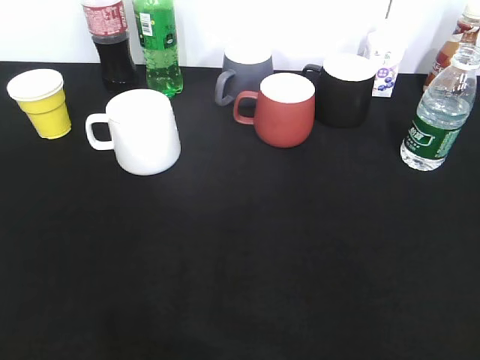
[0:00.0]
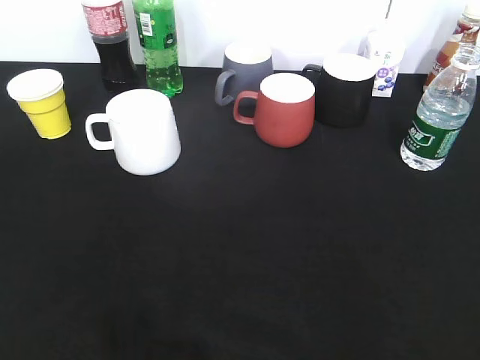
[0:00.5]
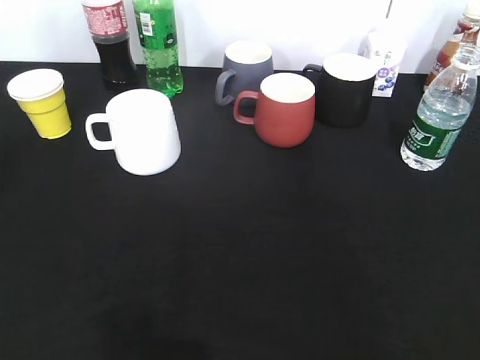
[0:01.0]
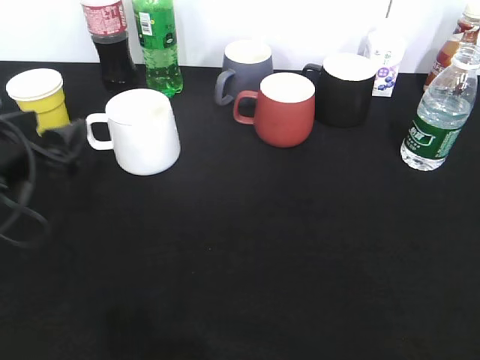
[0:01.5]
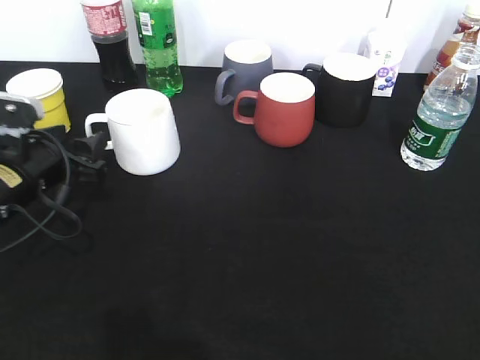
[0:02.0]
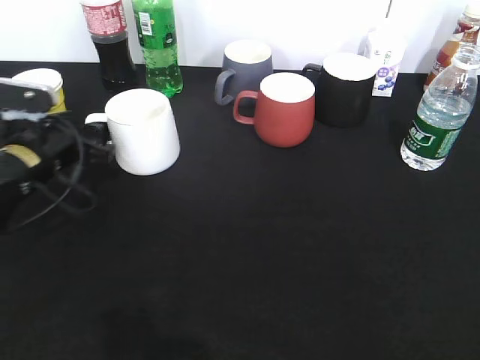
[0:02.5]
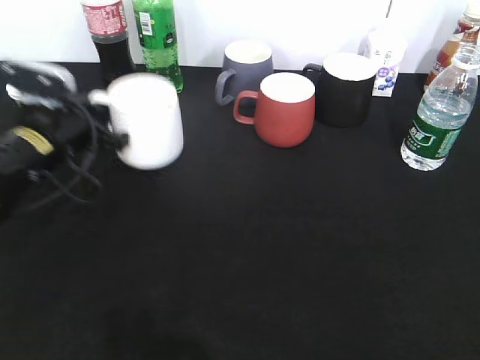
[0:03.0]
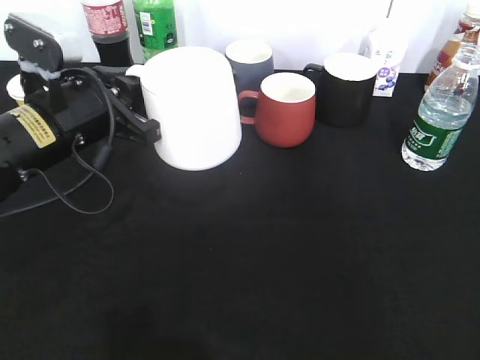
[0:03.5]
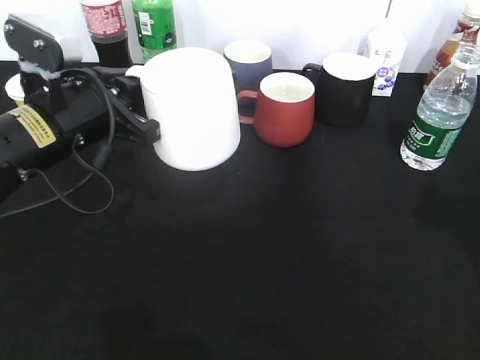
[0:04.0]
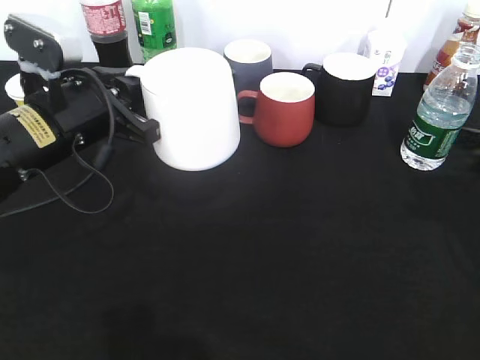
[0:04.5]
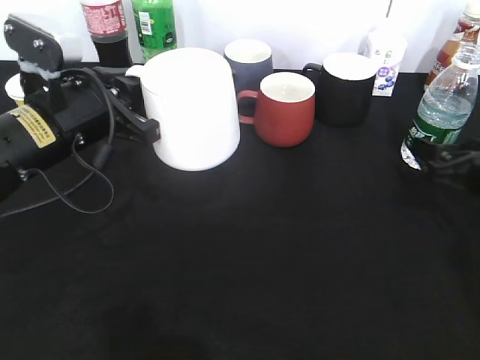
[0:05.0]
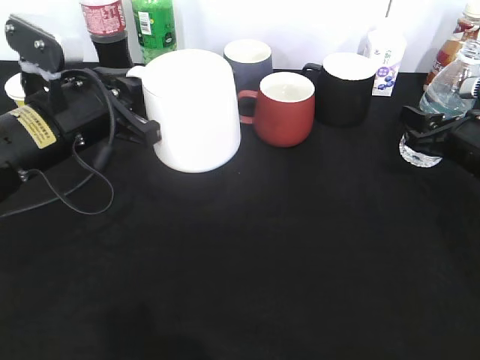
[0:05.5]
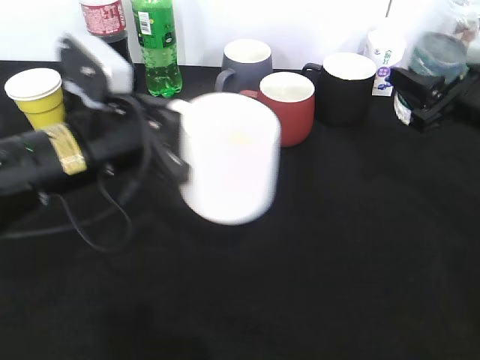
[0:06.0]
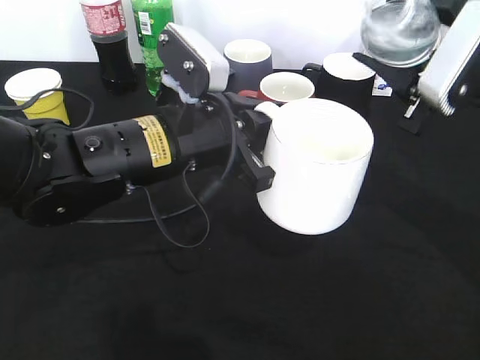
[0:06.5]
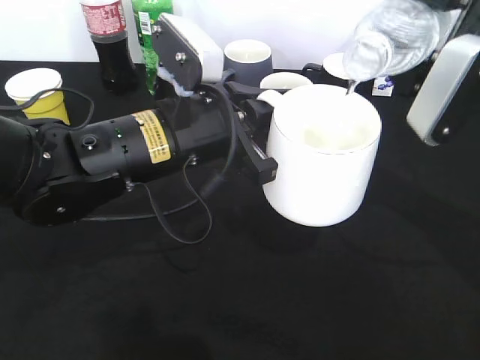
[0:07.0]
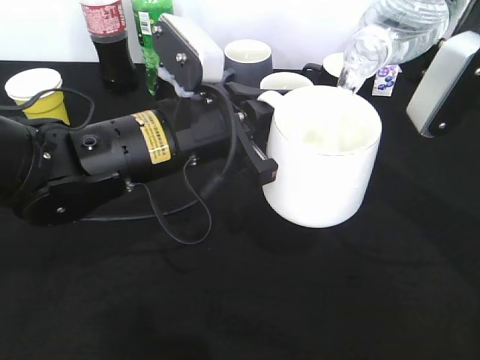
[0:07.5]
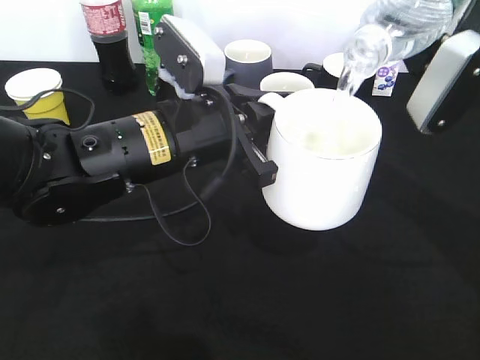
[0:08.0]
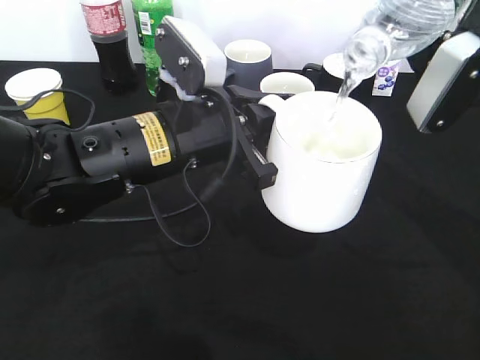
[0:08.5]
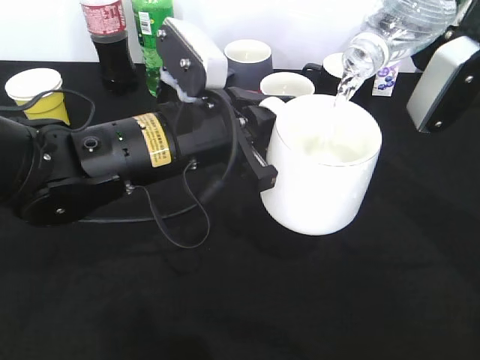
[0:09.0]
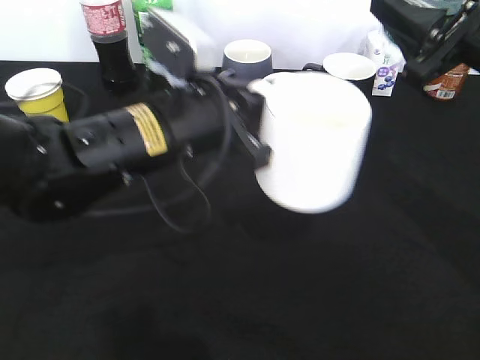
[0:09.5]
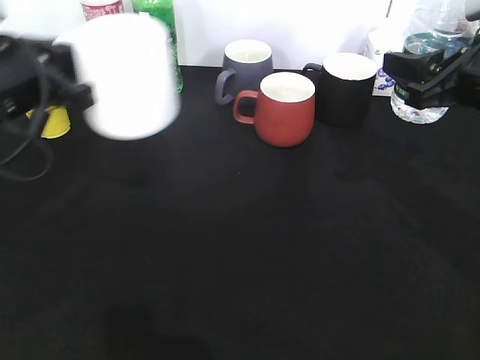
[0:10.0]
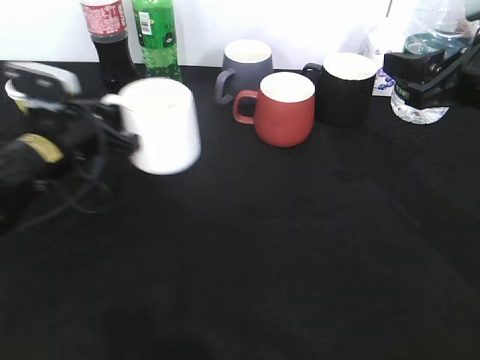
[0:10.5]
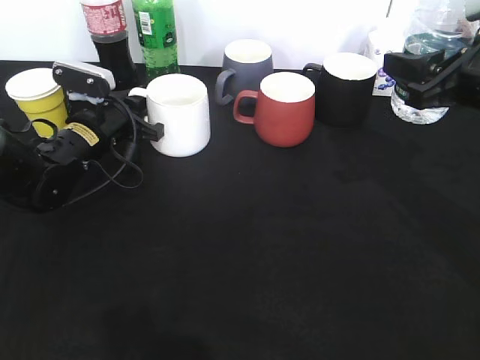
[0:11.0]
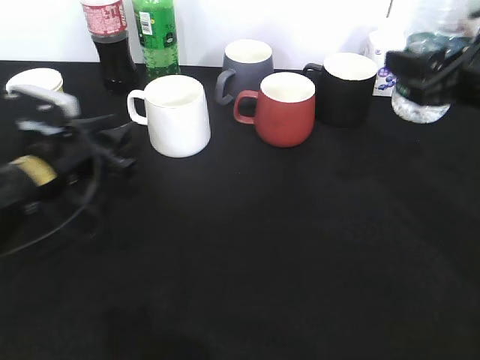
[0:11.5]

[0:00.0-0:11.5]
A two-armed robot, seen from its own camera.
Step, 0:00.5 to 0:02.5: Grasp the white cup with left gripper.
Step, 0:03.0 to 0:03.5: Lift the white cup with left gripper.
Step, 0:05.5 to 0:09.0: Pour the water from bottle to cup with right gripper.
Step, 0:10.0 to 0:11.0: Place the white cup on the table with left gripper.
0:00.0 to 0:02.0: The left gripper is displaced forward and downward by about 30 cm, and opens its fingers.
0:02.0 to 0:04.0: The right gripper goes about 15 cm forward. The left gripper is displaced upward and to the right by some 10 cm, and closes its fingers.
0:04.0 to 0:06.0: The right gripper travels forward and downward by approximately 20 cm, and closes.
0:06.0 to 0:07.5: The left gripper goes approximately 5 cm to the right, while the right gripper moves upward and to the left, approximately 10 cm.
0:09.5 to 0:11.5: The left gripper shifts roughly 15 cm to the left and downward, and opens its fingers.

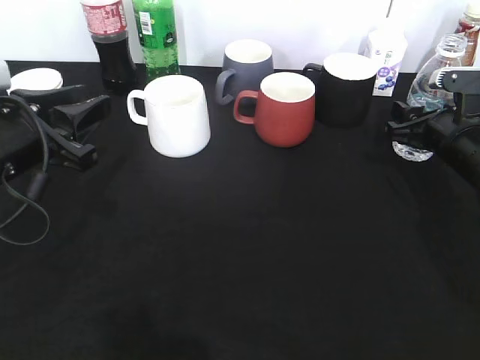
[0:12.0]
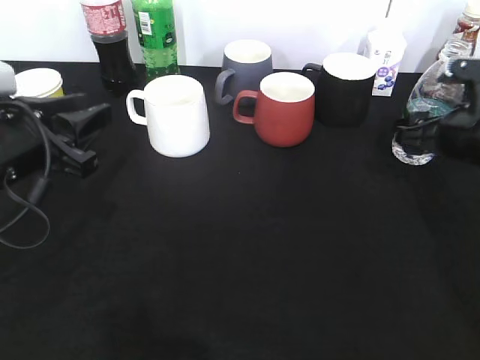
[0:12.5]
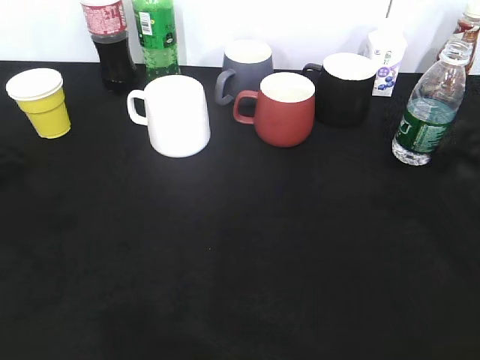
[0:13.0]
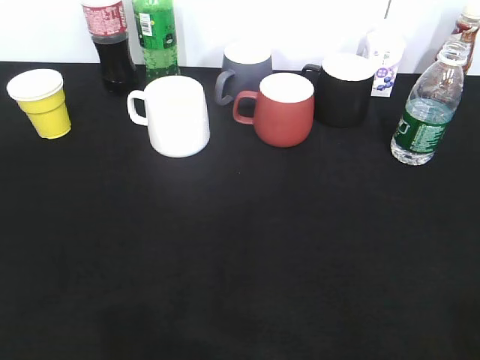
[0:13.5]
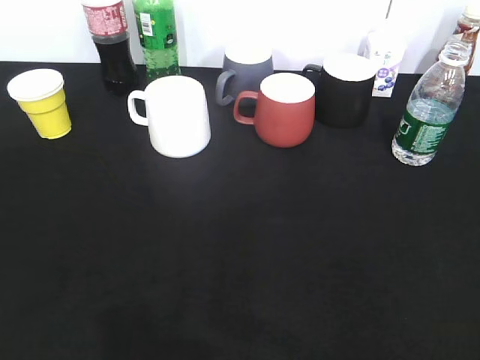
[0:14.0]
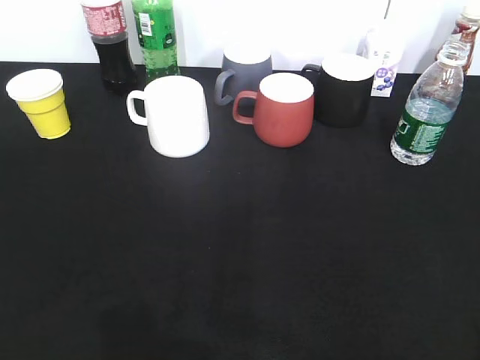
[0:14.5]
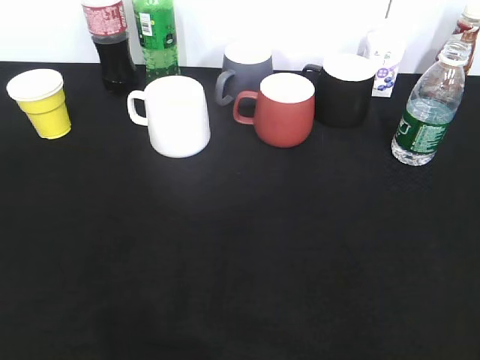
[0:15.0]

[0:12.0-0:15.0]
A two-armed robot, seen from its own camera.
0:12.0 to 0:13.5: The right gripper goes about 40 cm backward and upward, and opens, while the left gripper goes roughly 25 cm backward and upward.
